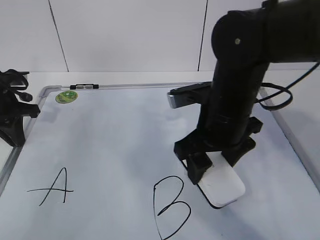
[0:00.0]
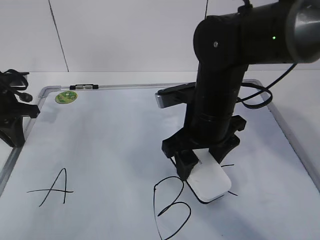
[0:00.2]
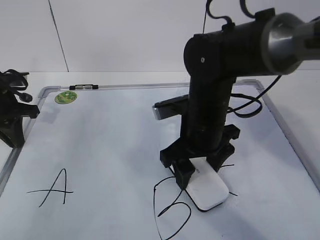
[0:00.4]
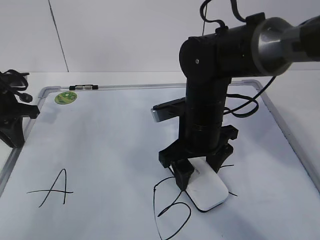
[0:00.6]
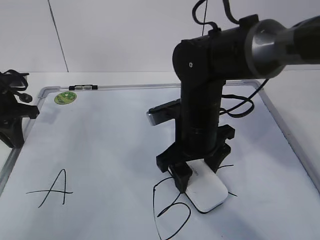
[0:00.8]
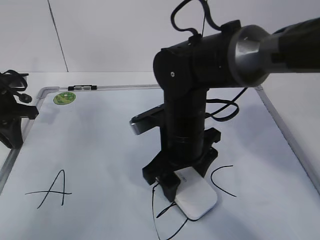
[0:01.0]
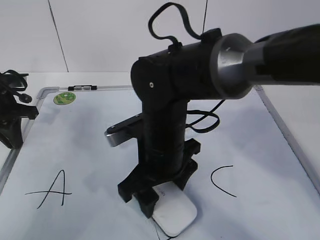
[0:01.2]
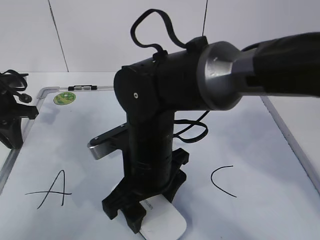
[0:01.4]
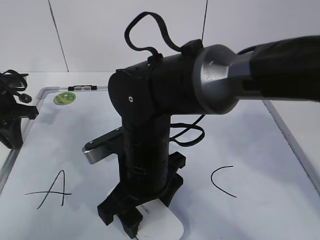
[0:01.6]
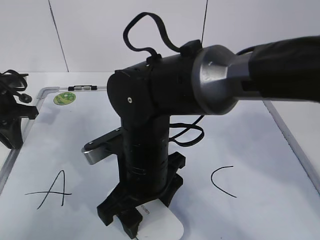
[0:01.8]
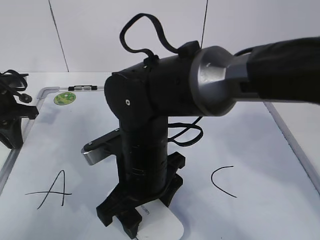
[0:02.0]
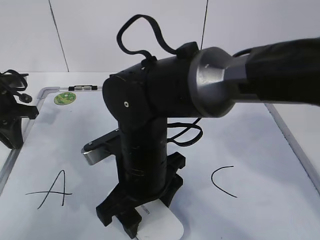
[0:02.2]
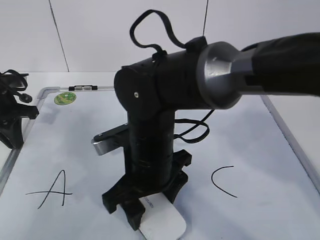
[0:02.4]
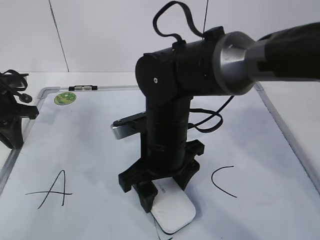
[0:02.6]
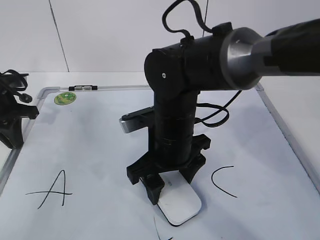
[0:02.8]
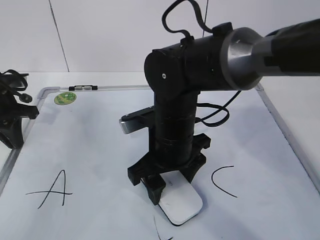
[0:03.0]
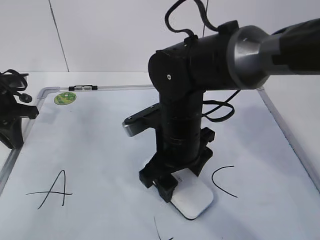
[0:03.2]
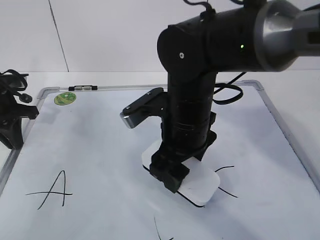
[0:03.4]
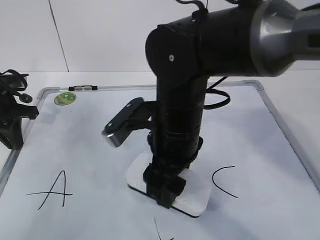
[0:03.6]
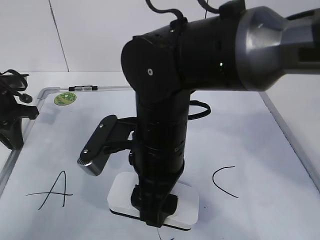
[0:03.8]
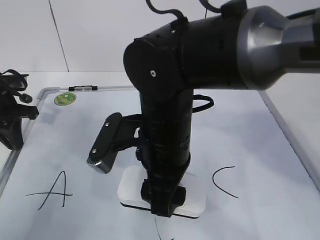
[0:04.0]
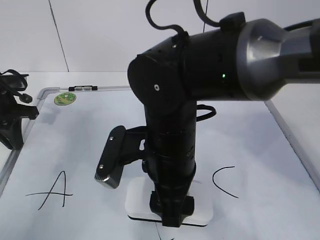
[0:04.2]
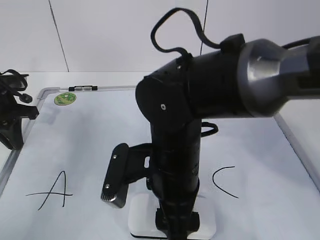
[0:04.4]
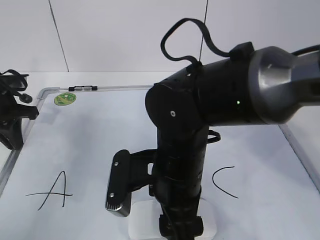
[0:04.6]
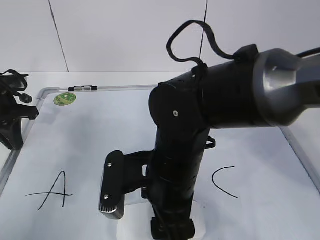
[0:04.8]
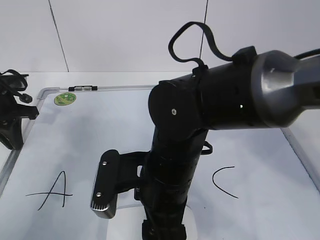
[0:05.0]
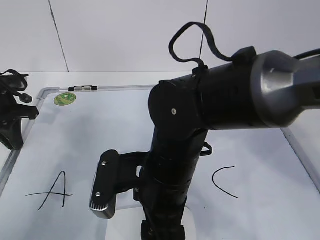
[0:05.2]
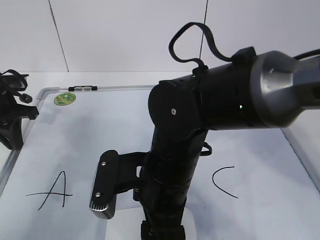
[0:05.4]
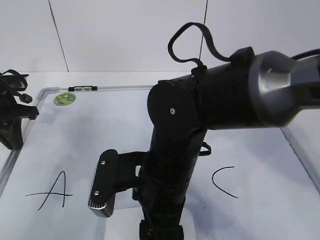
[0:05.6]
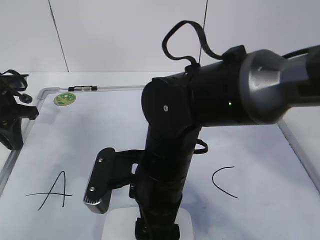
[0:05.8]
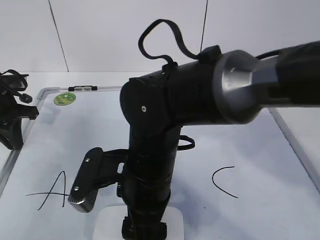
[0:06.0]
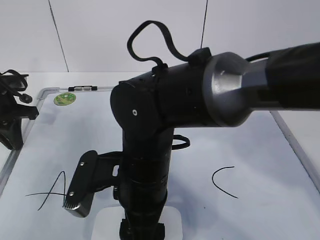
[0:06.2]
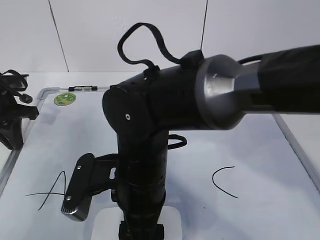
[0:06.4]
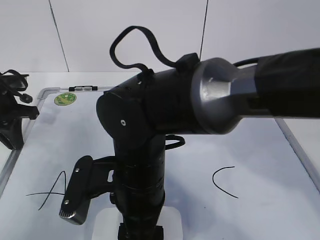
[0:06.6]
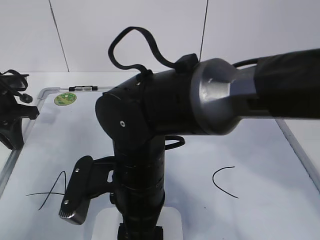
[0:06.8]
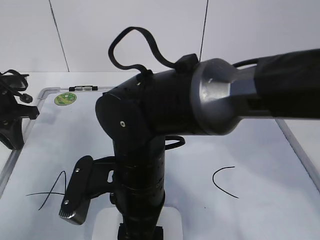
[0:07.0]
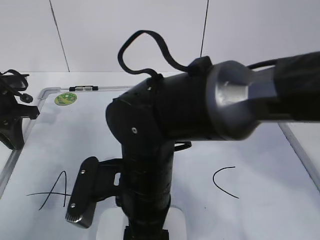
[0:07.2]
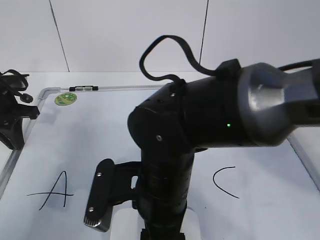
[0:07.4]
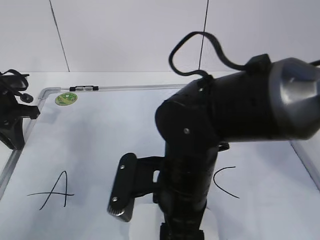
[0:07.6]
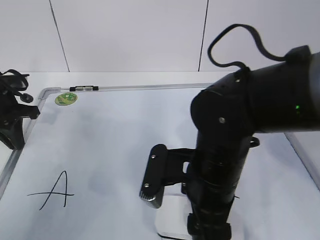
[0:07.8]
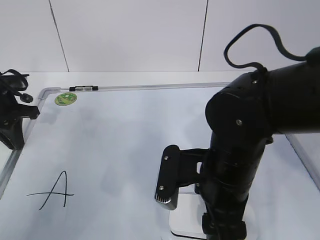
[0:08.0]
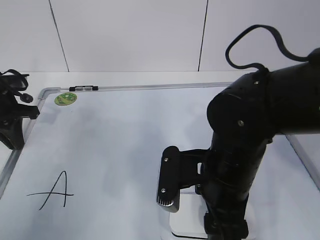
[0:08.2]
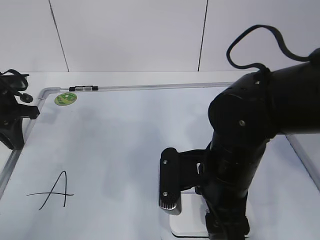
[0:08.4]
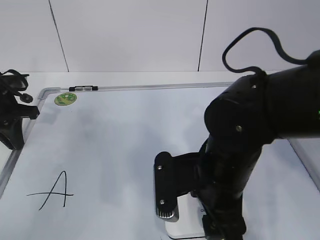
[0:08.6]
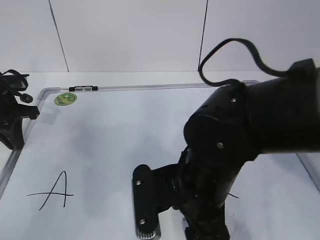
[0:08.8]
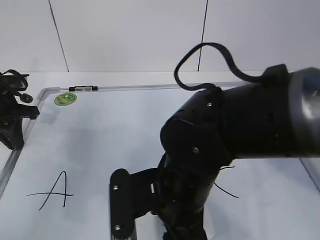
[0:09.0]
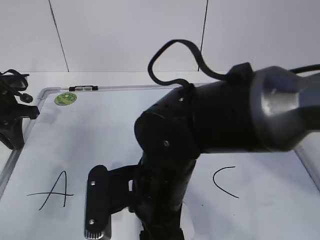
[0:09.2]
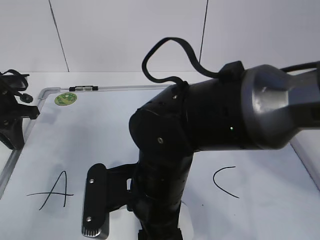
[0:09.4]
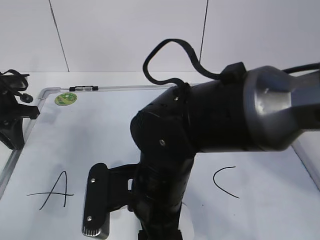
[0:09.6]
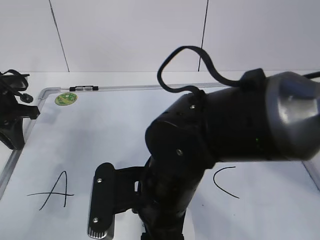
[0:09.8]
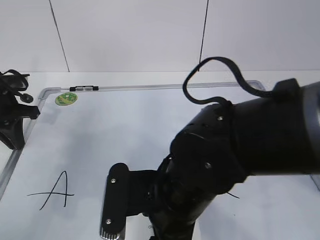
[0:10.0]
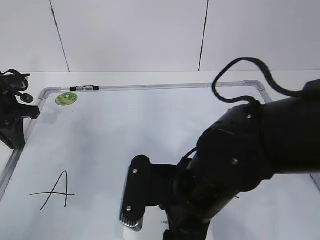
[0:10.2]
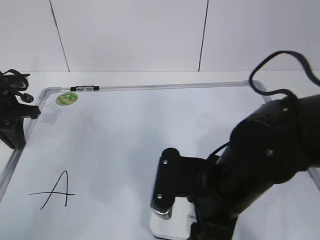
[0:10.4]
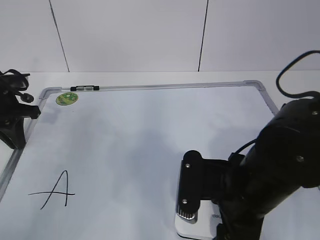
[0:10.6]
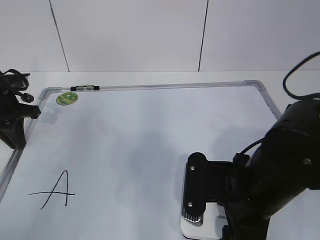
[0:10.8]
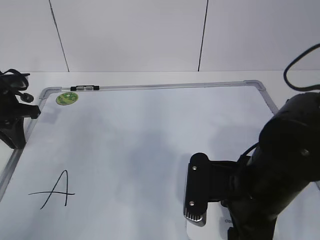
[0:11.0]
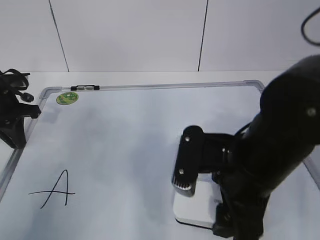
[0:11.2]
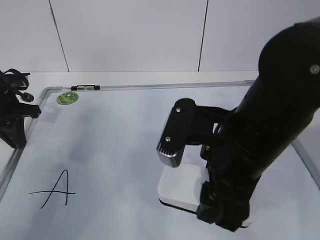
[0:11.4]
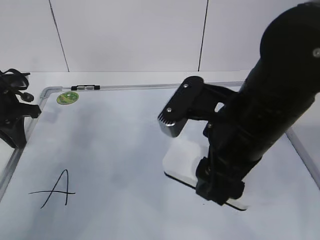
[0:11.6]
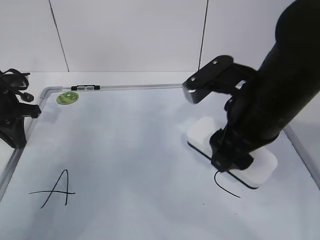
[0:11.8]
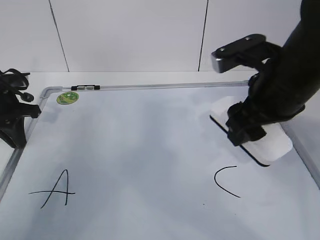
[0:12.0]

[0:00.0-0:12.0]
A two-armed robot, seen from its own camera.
Task of the whole recording: pick up the eraser on the blackboard and erase the letter "B".
Step, 0:00.0 to 0:06.4: Erase the letter B with your right hand.
Step, 0:06.6 to 0:10.6: Put down the eraser with your right hand.
0:00.0 to 0:01.6: The right gripper travels to the left by roughly 10 cm.
0:01.6 to 0:03.0: The right gripper travels forward by roughly 5 cm.
0:03.0 to 0:04.4: The right gripper heads backward, covering approximately 5 cm.
0:07.6 to 0:09.0: There are only small adjustments of the grippers.
0:09.0 to 0:10.4: The right gripper is displaced to the right by some 5 cm.
0:10.4 to 0:12.0: The right gripper goes approximately 15 cm upward, to the right and forward.

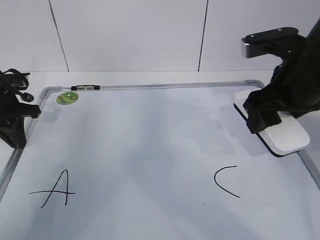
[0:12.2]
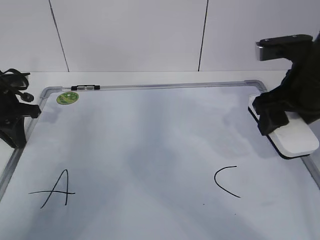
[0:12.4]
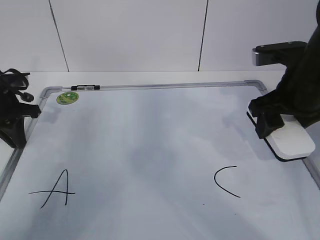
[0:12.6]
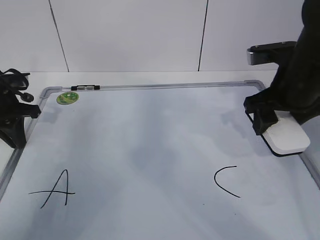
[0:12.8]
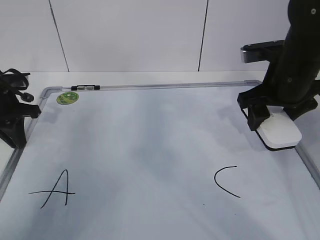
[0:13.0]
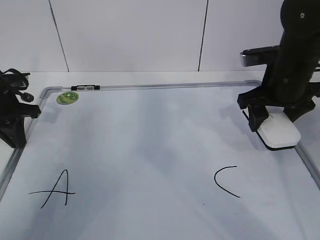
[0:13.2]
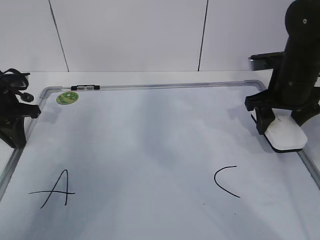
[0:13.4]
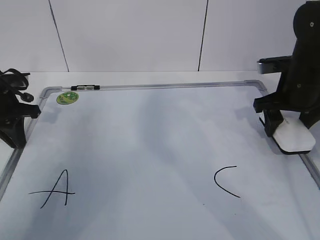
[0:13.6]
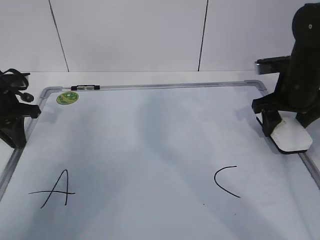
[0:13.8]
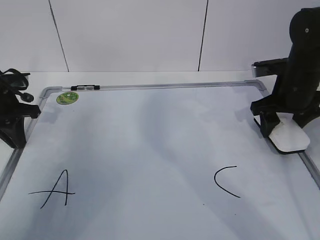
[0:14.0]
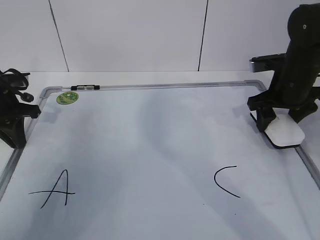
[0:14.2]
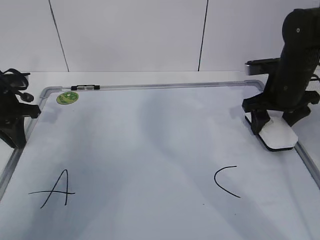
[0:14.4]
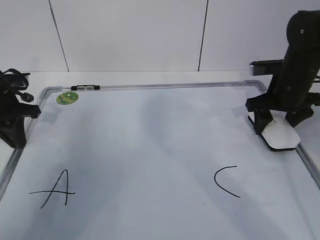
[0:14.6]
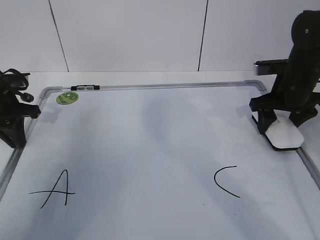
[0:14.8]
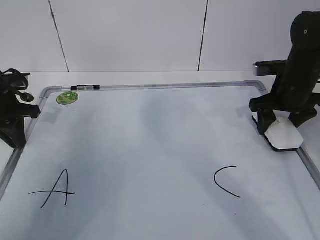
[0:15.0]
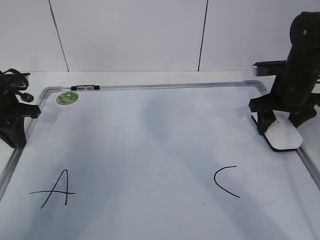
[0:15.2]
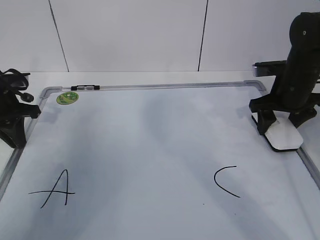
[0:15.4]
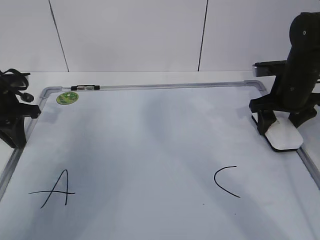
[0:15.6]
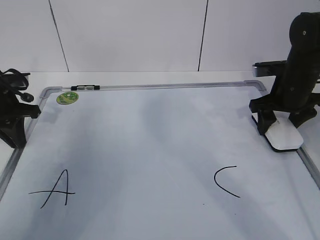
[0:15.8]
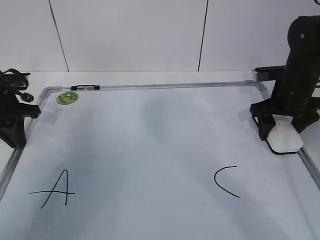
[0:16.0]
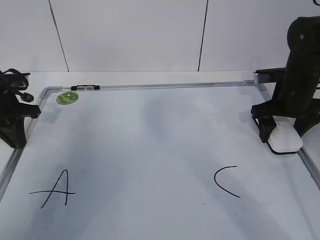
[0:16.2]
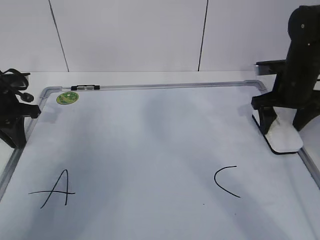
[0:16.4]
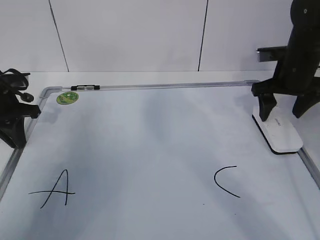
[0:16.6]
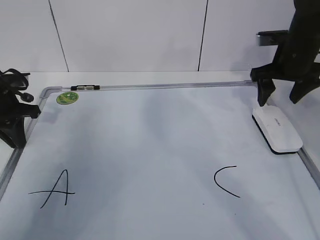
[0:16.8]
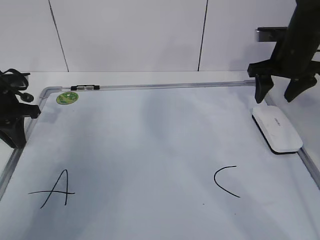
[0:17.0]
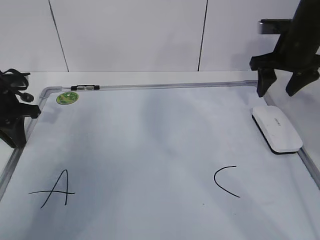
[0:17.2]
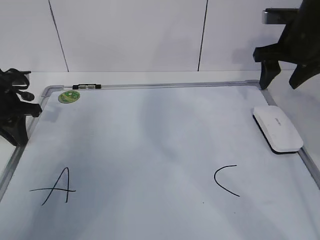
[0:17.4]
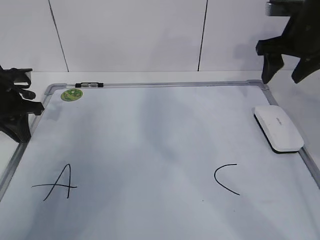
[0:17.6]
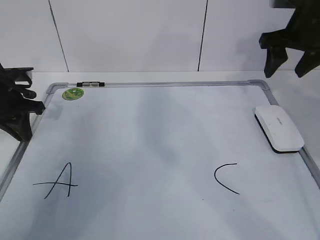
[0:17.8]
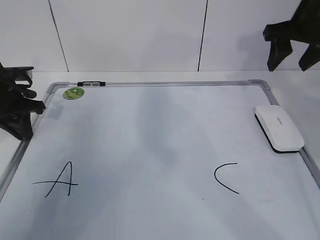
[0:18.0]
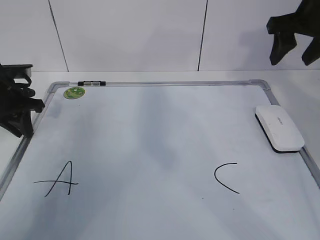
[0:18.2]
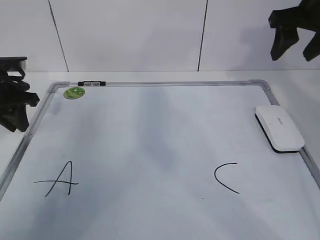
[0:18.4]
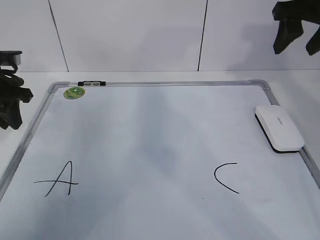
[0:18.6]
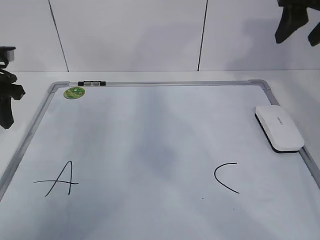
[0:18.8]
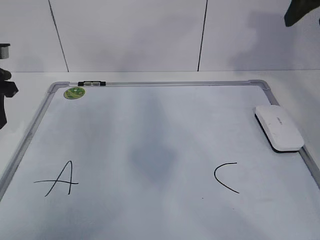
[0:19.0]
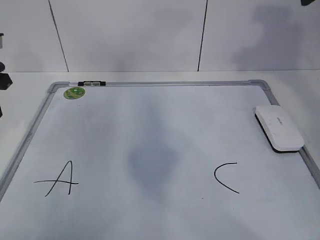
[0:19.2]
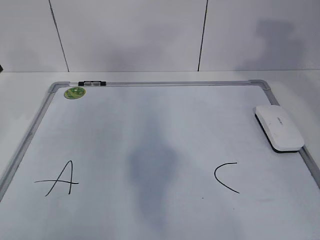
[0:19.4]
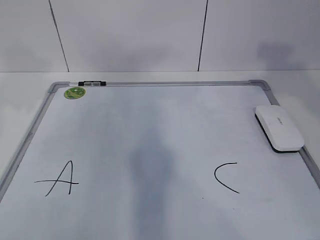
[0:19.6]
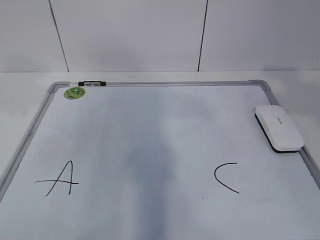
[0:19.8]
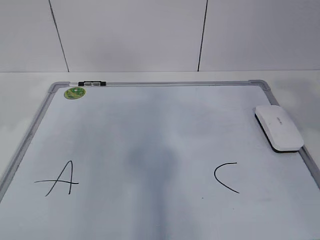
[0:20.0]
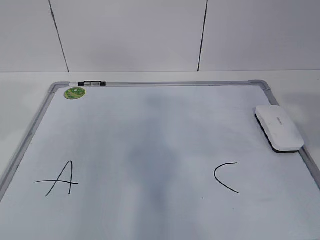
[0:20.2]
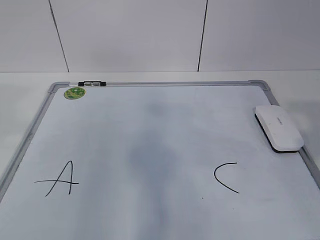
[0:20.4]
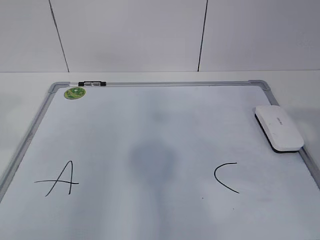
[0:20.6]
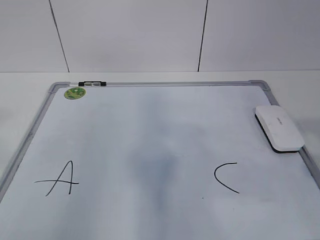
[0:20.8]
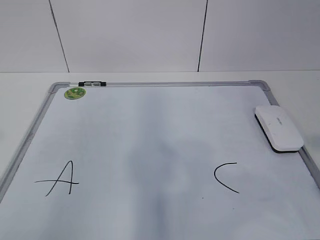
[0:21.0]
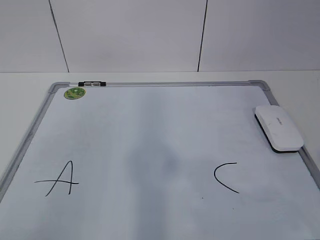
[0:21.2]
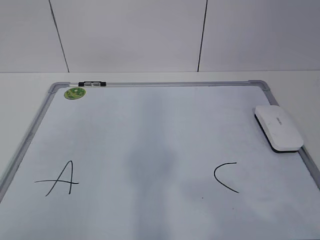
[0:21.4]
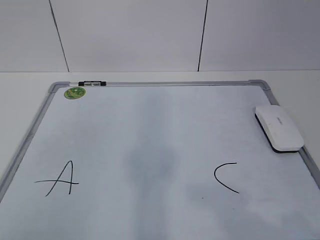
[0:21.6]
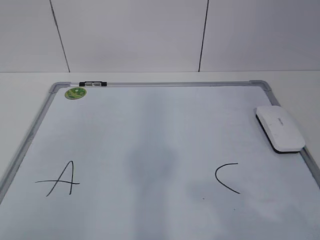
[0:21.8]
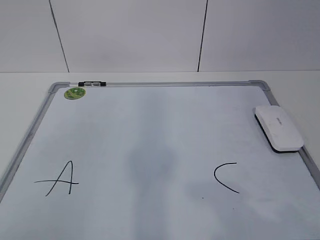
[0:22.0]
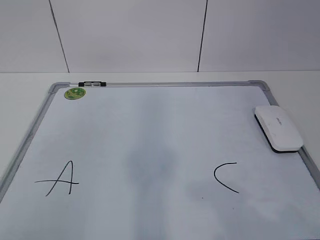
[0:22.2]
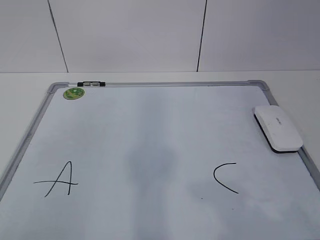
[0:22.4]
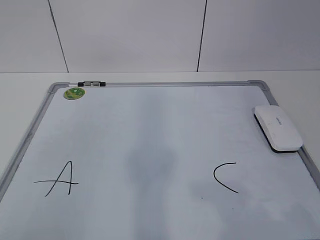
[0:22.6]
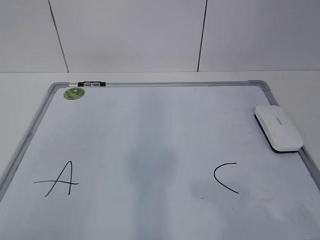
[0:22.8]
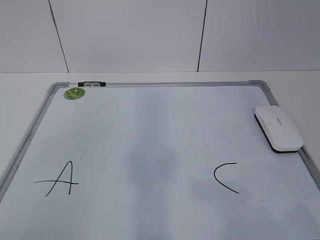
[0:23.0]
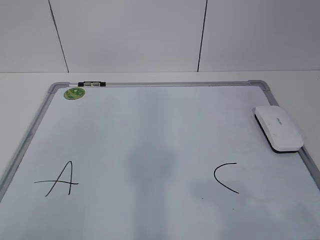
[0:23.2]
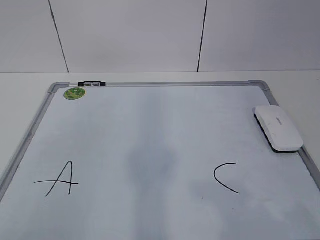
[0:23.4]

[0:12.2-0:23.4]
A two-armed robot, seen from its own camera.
Task of the whole recording: pick up the eraser on the blackboard and erase the letter "B".
0:12.2 to 0:13.8: The right gripper moves forward, downward and to the right, some 15 cm.
0:13.8 to 0:15.4: The grippers move only a little.
0:15.4 to 0:17.0: The right gripper travels upward by about 5 cm.
0:17.0 to 0:18.6: The right gripper is displaced upward by roughly 10 cm. Meanwhile the left gripper opens.
0:18.6 to 0:20.2: The left gripper heads backward and upward, covering about 25 cm, while the right gripper is displaced backward by roughly 25 cm.
0:20.2 to 0:21.8: The left gripper goes roughly 20 cm backward. Meanwhile the right gripper travels backward and downward by approximately 15 cm.
0:21.8 to 0:23.4: The grippers move only a little.
